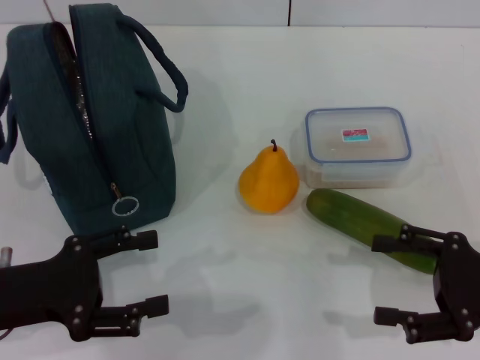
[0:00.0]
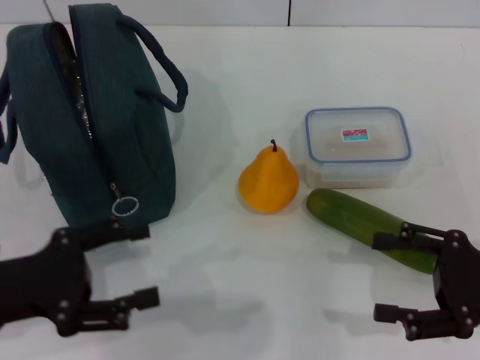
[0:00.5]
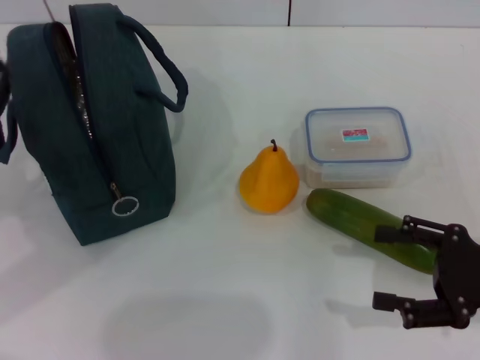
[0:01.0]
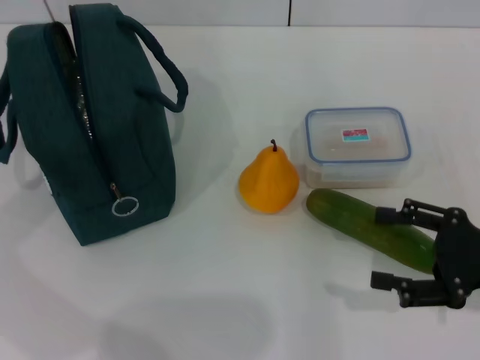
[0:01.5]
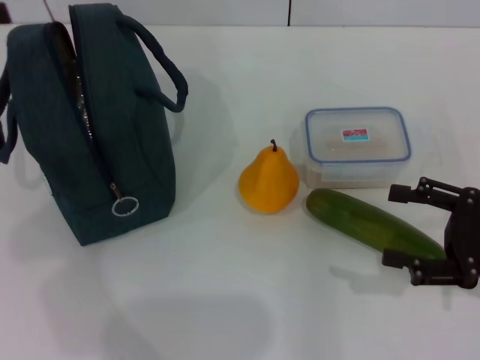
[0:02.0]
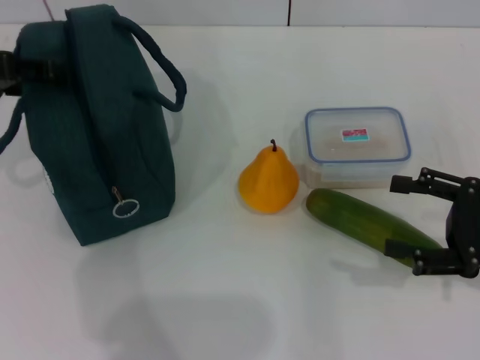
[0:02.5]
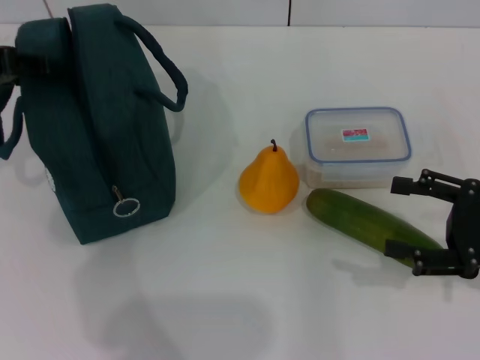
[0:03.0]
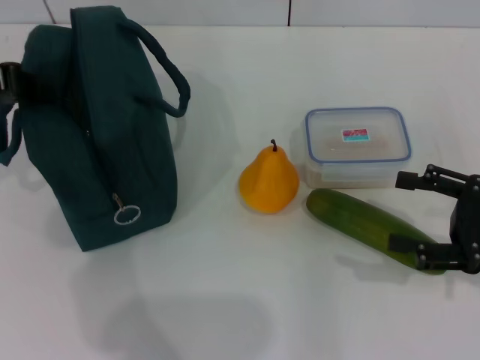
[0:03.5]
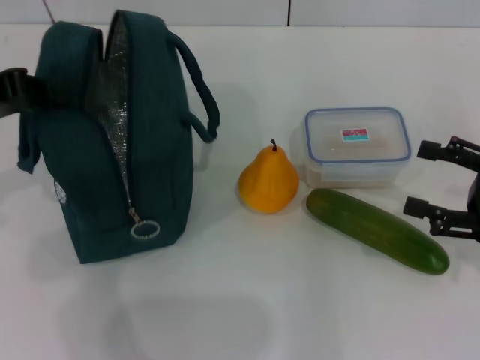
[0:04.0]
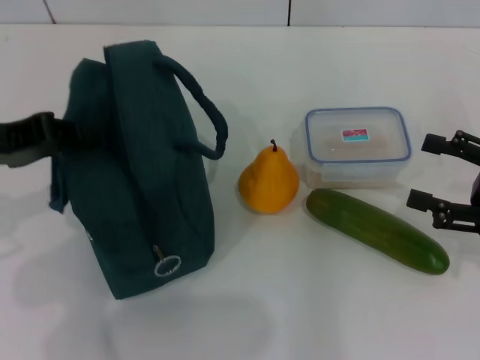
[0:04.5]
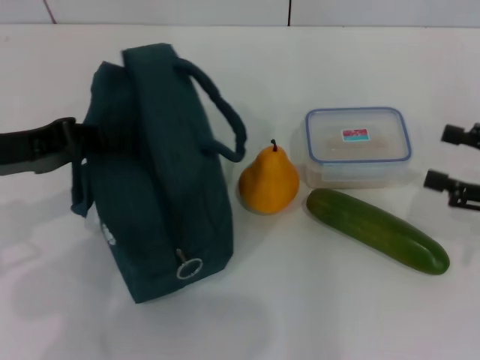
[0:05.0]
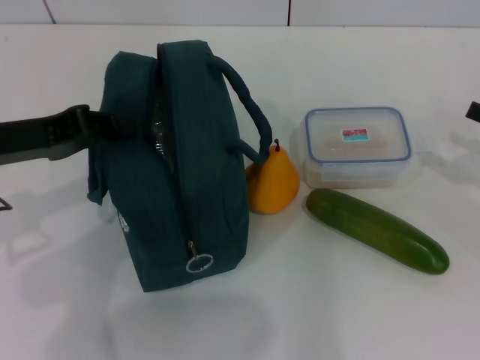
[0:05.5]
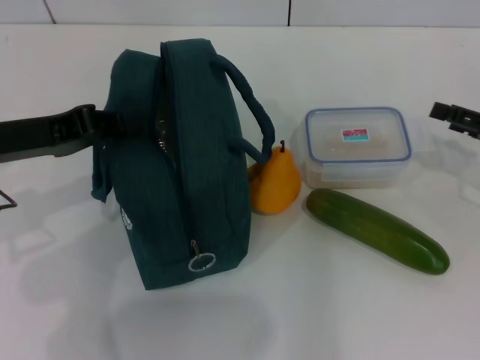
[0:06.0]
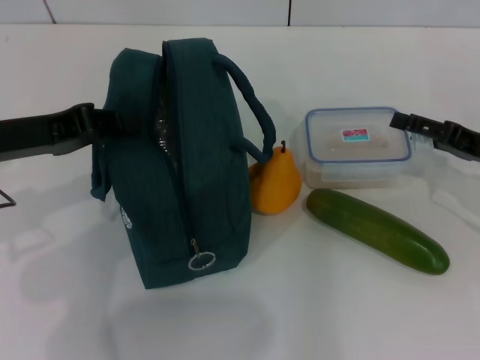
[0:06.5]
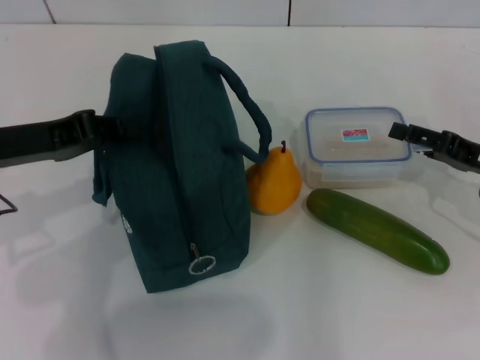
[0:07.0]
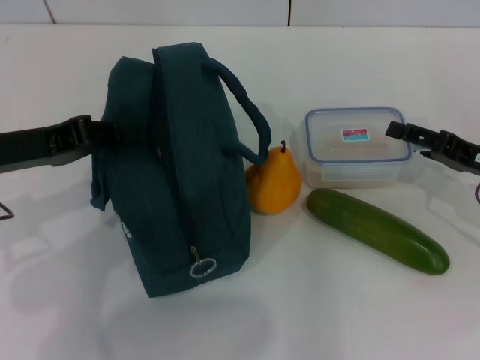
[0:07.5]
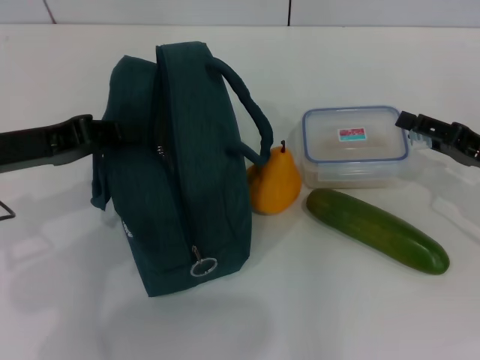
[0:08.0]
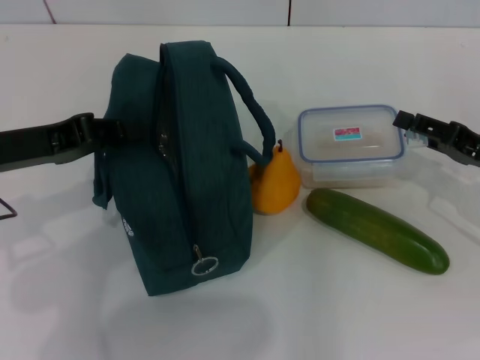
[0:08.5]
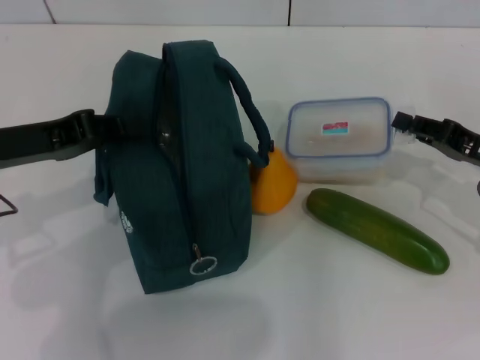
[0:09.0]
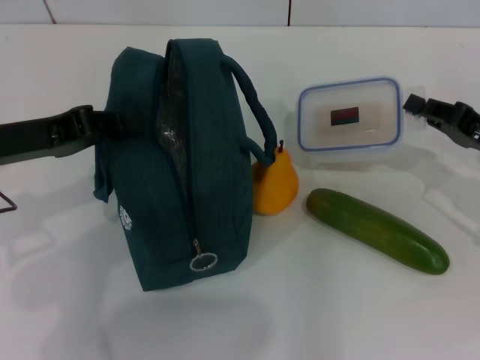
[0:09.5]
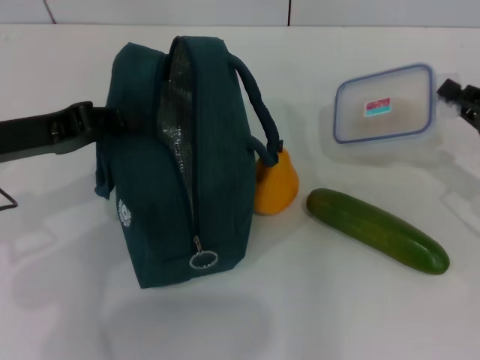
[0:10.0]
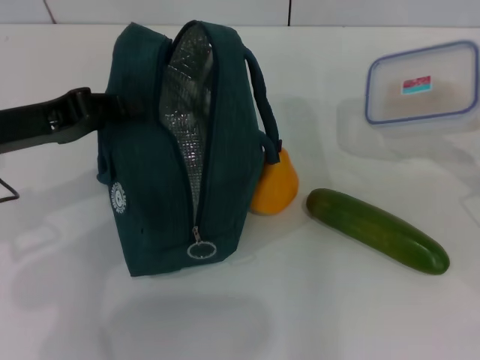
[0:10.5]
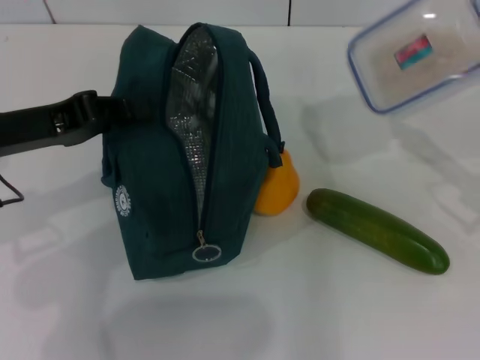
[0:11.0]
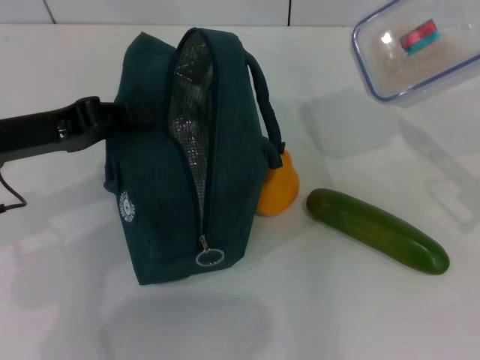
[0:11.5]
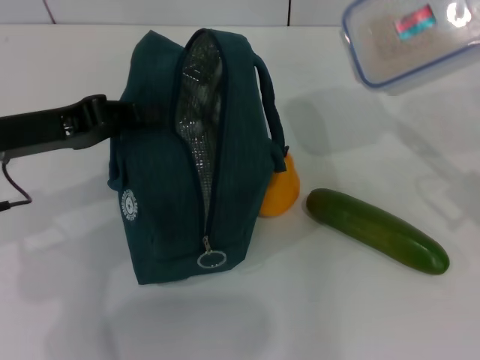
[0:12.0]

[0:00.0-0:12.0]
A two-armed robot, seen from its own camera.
Step, 0:00.0 to 0:05.0: Hold the lunch bag with your left hand.
Step, 0:05.5 to 0:09.0: Pick up the lunch box with your right hand.
0:00.0 to 0:02.0: The left gripper goes about 20 cm upward, forward and to the left.
0:02.0 to 0:04.0: The left gripper is displaced to the right by approximately 5 cm, and closes.
0:04.0 to 0:06.0: The left gripper shifts by about 5 cm; the right gripper moves forward, about 5 cm.
0:06.0 to 0:08.0: The grippers stay close to where they were, moving slightly.
0:08.0 to 0:10.0: The right gripper closes up.

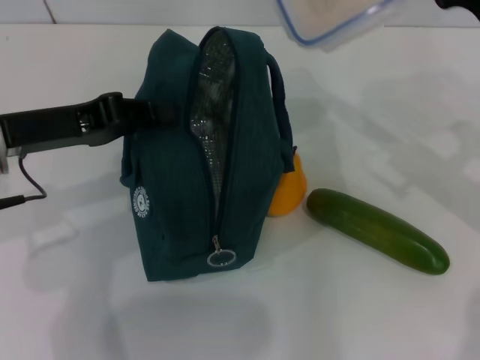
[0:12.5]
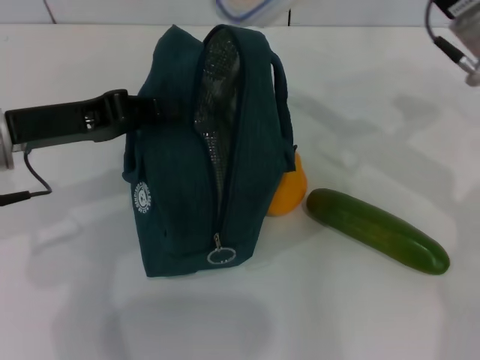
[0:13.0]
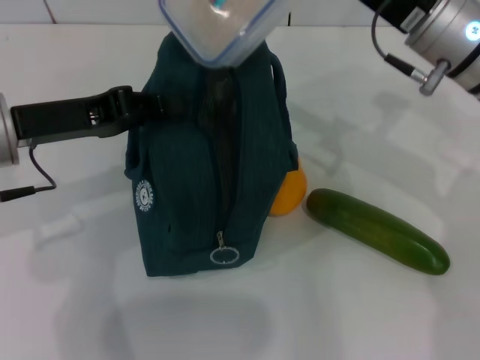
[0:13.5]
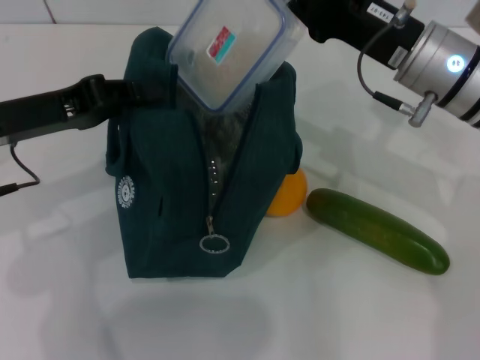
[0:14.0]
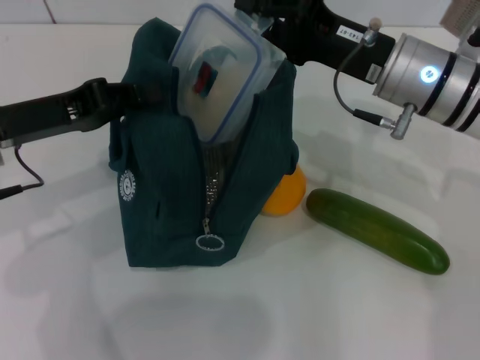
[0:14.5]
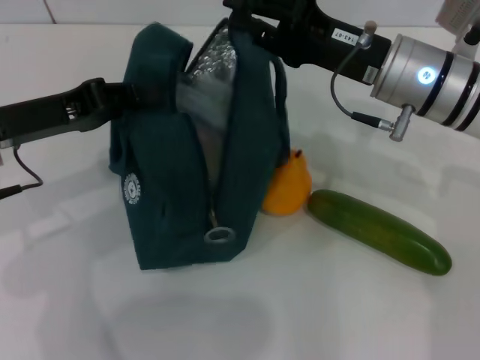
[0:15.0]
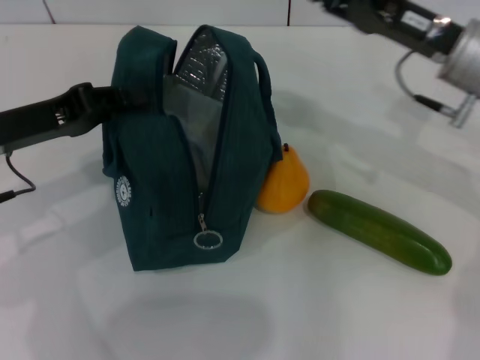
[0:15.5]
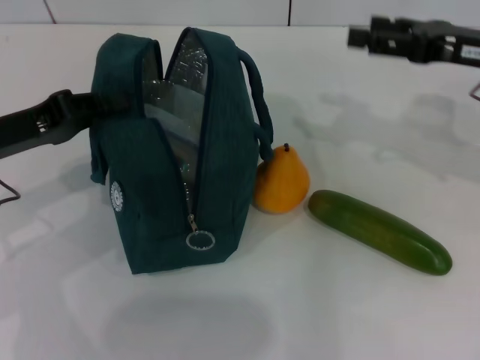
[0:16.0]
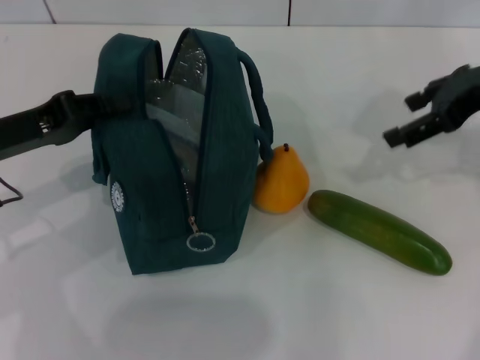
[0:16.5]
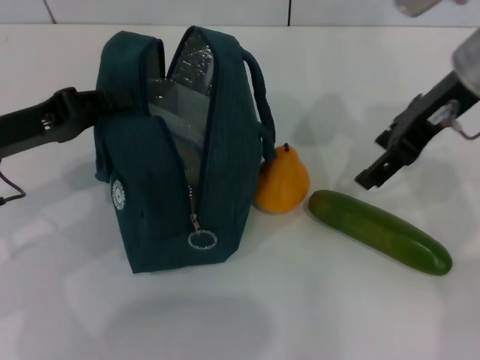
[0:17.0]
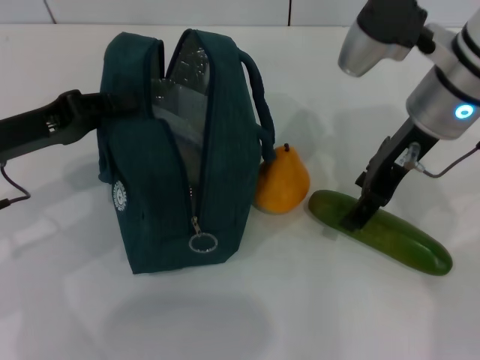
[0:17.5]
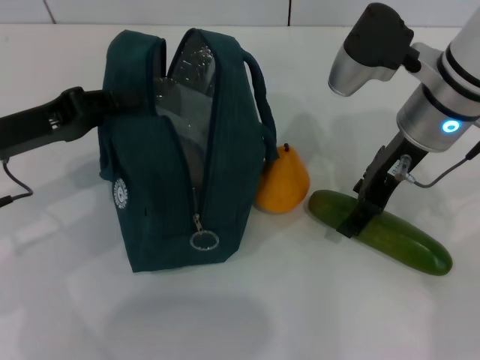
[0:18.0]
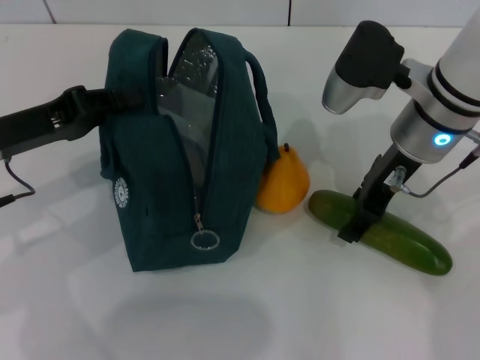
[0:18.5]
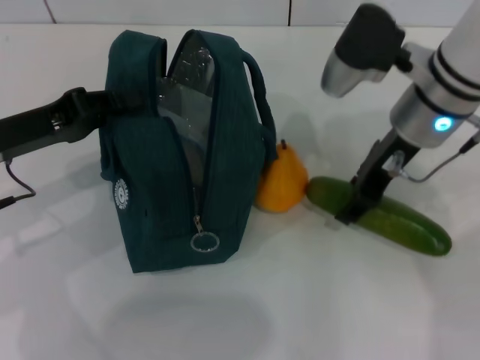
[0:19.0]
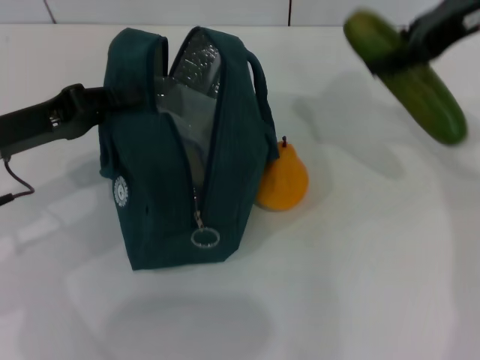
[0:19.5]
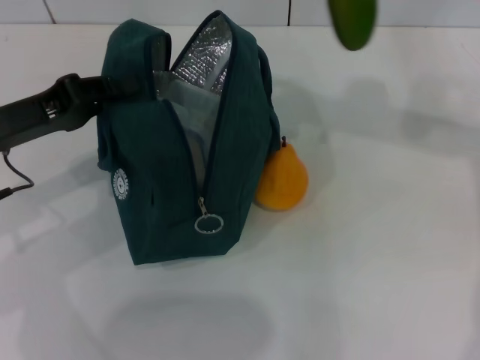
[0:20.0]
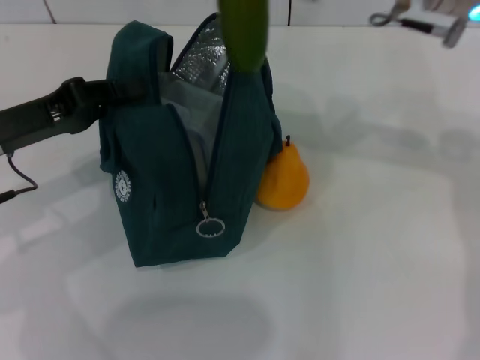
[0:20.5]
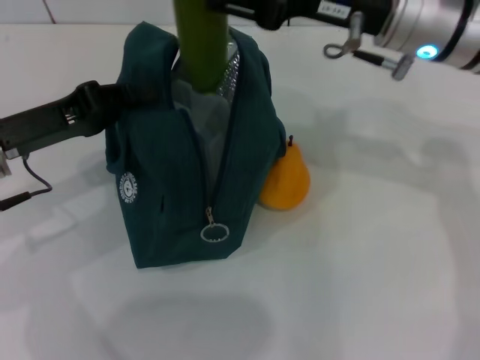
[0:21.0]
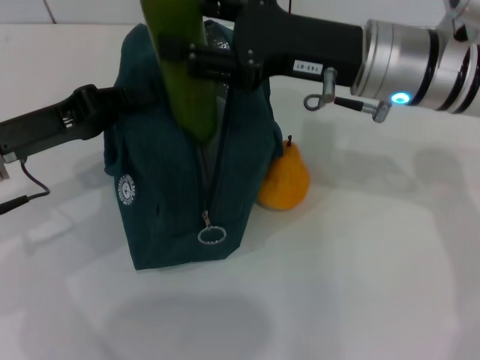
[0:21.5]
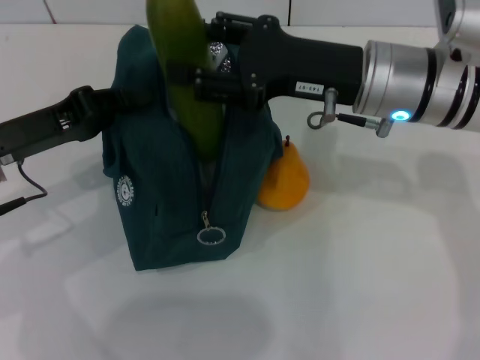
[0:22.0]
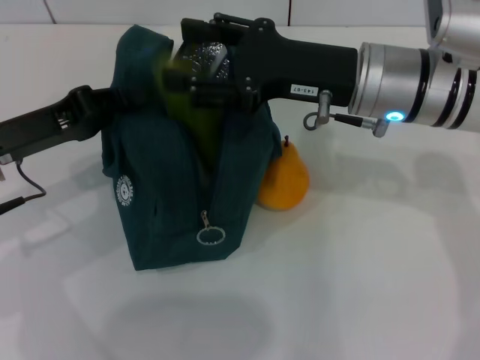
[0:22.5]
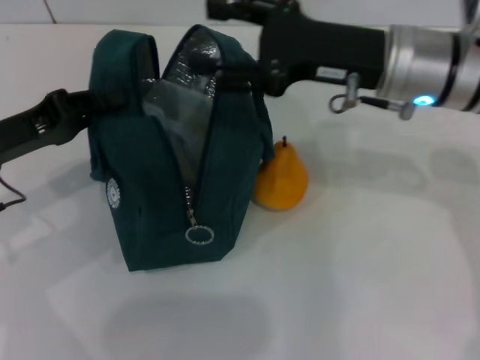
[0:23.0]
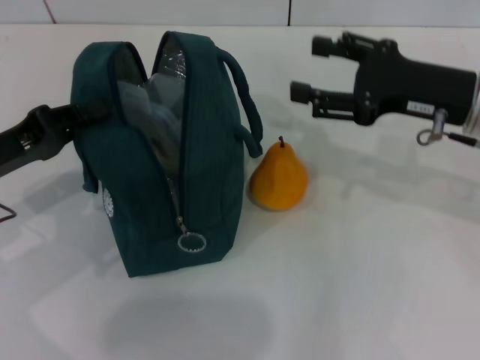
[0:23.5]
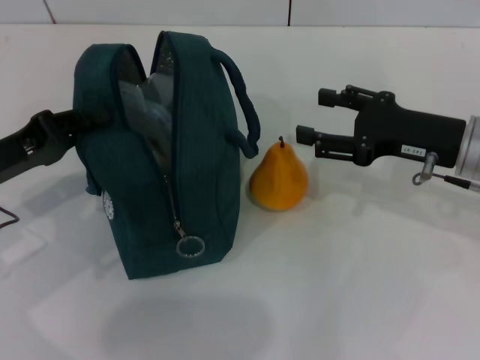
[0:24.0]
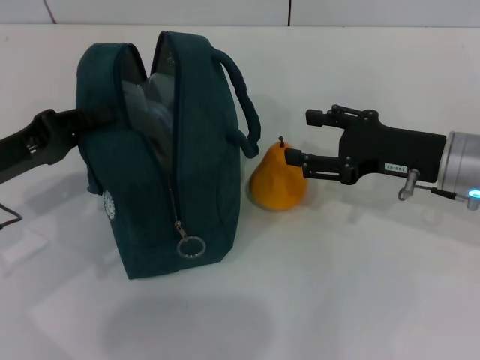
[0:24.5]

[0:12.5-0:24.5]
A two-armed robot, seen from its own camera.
Step, 0:12.5 to 0:15.0: Place the lunch box into the lunch bag with your right hand.
Step, 0:15.5 to 0:18.5: Pick up the cucumber with your right hand.
Step, 0:19.0 to 0:23.0: Put the cucumber into the lunch bag with your right hand.
0:12.5 to 0:14.5: The right gripper travels to the left by approximately 10 cm.
0:14.5 to 0:16.5: The right gripper moves to the right and upward, roughly 15 cm, and opens its fingers.
0:16.5 to 0:18.5: The right gripper shifts approximately 15 cm to the left and downward.
0:18.5 to 0:20.5: The right gripper goes some 10 cm upward.
0:20.5 to 0:22.5: The right gripper heads downward, covering approximately 5 cm.
0:22.5 to 0:24.5: The right gripper is displaced to the right and downward by about 10 cm.

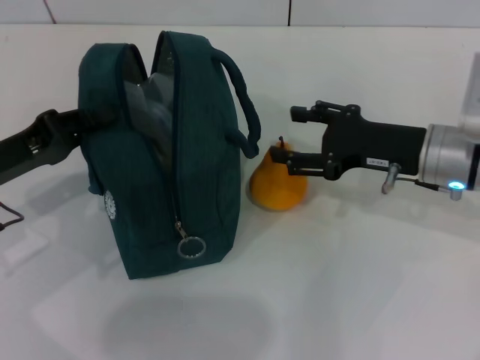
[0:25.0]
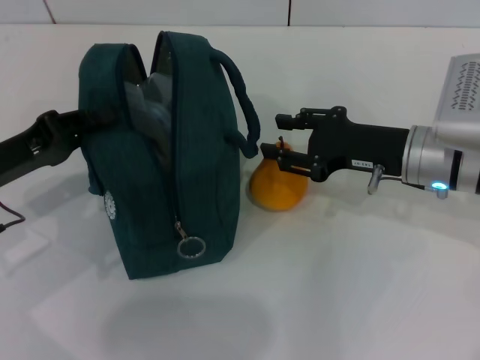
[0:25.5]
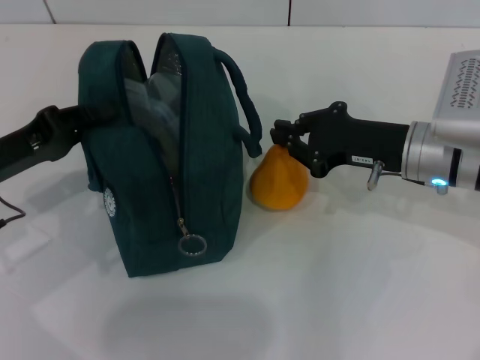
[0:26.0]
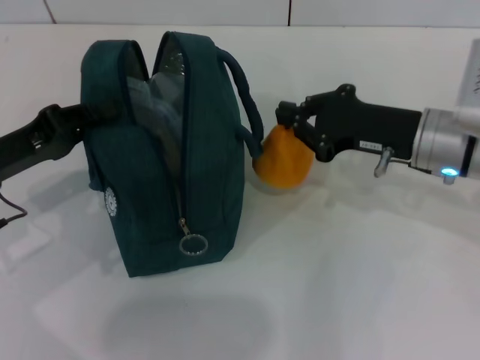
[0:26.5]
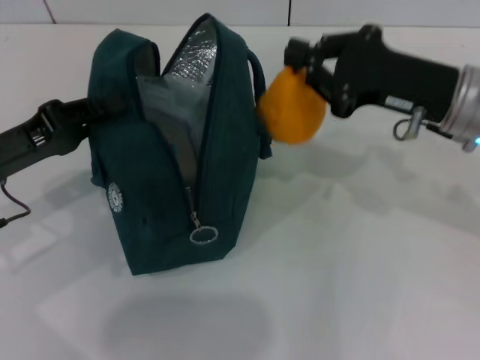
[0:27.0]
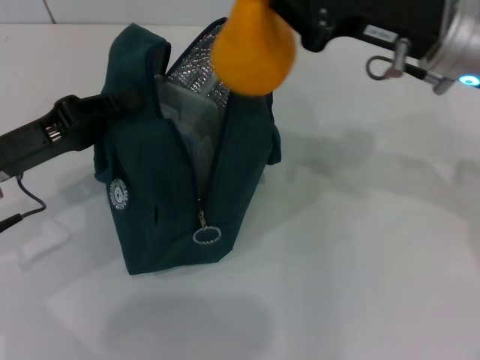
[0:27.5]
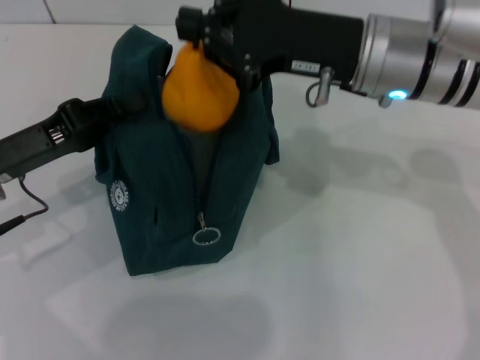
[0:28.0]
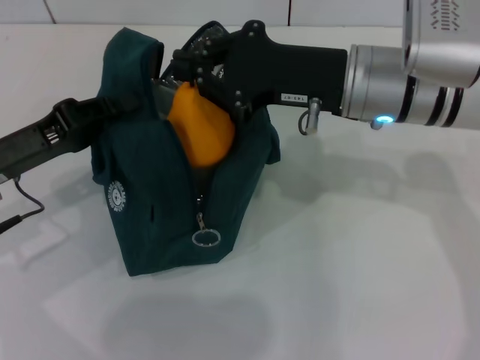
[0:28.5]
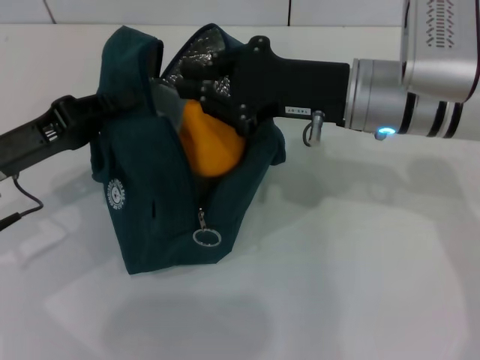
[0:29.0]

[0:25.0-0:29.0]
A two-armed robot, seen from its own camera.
0:25.0 to 0:27.0: The right gripper shifts about 5 cm upward, and closes.
0:27.0 to 0:29.0: The right gripper travels to the left by approximately 10 cm.
